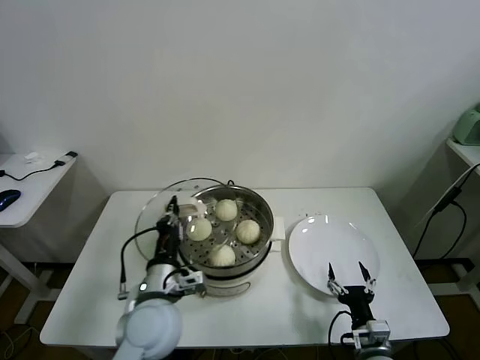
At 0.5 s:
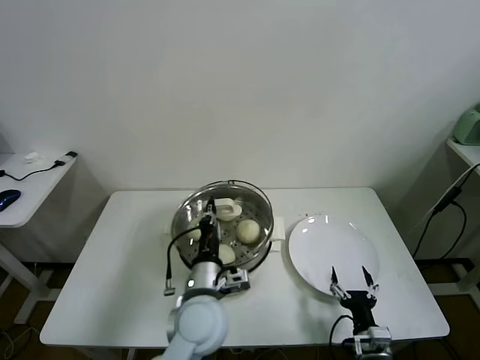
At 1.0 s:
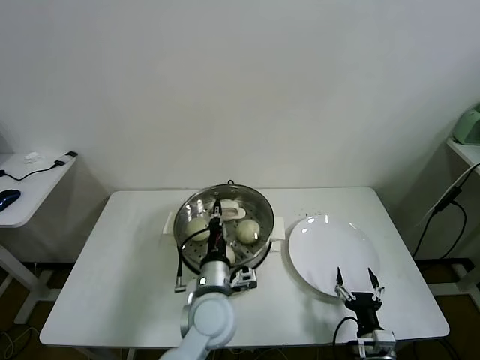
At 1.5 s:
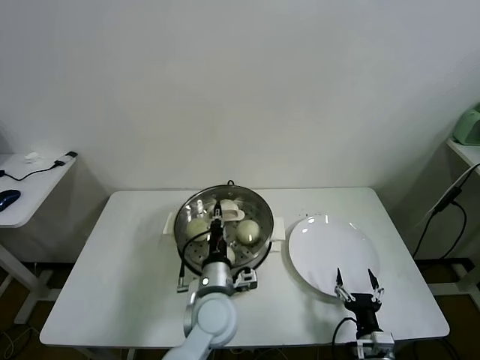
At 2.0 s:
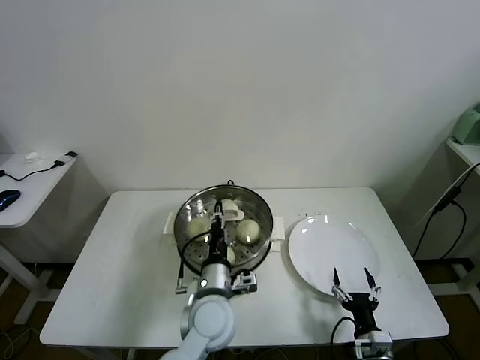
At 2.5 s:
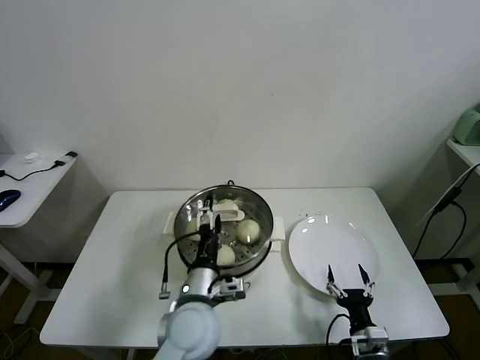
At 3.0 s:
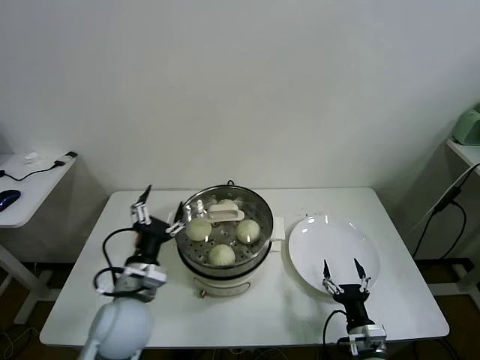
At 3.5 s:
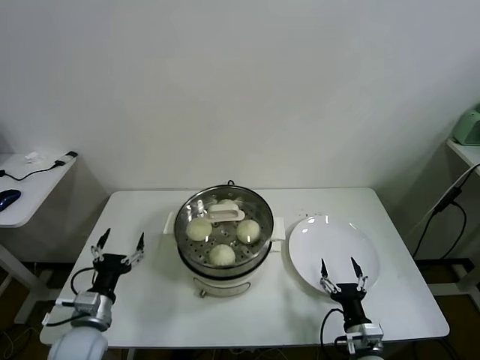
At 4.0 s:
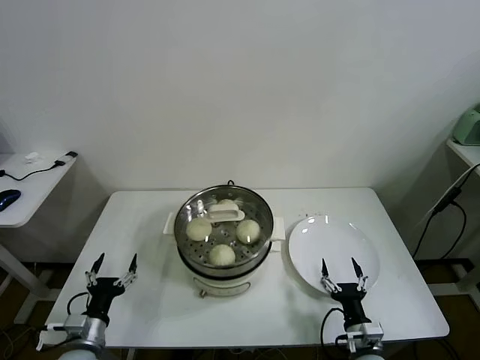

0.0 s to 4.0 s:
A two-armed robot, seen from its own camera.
Task of the whole recording: take steamed baozi put them in steamer.
0.0 to 2.0 s: The left gripper shifts roughly 10 cm to the right.
2.0 to 4.0 s: The left gripper moves to the left, about 30 cm, and opens.

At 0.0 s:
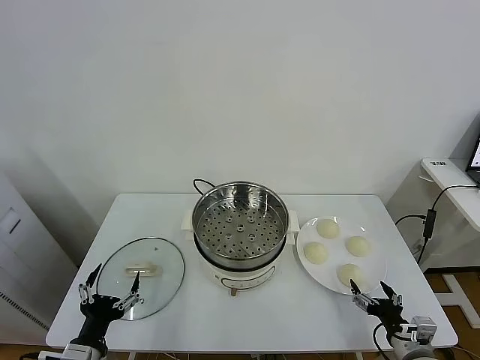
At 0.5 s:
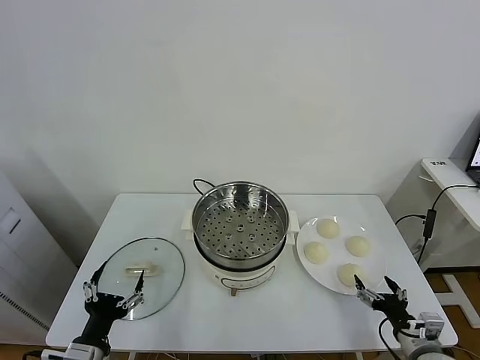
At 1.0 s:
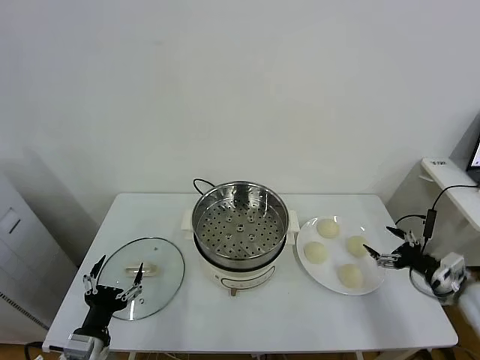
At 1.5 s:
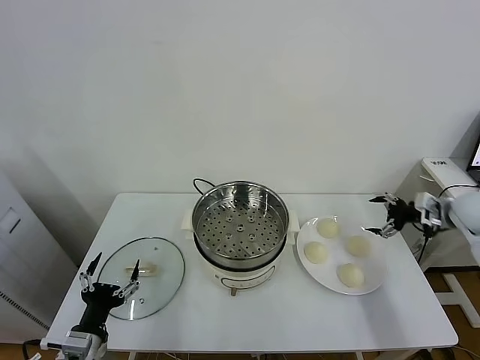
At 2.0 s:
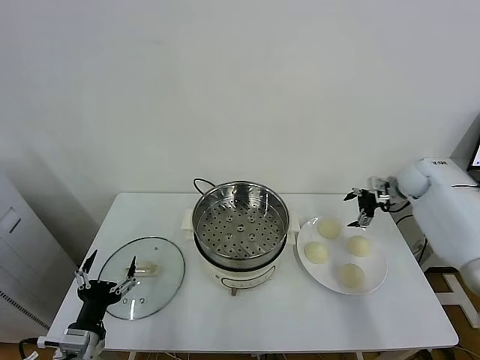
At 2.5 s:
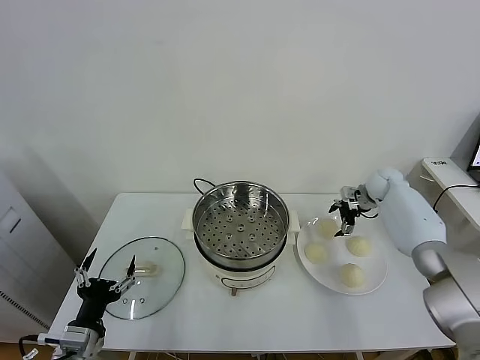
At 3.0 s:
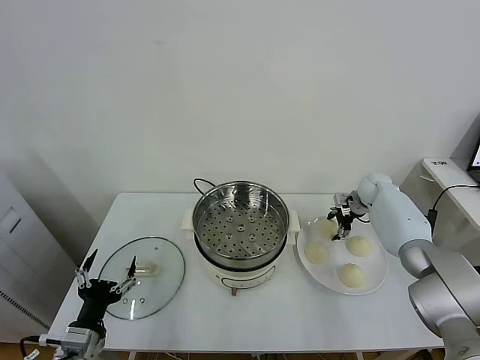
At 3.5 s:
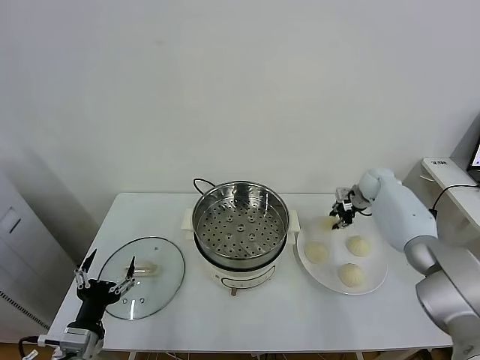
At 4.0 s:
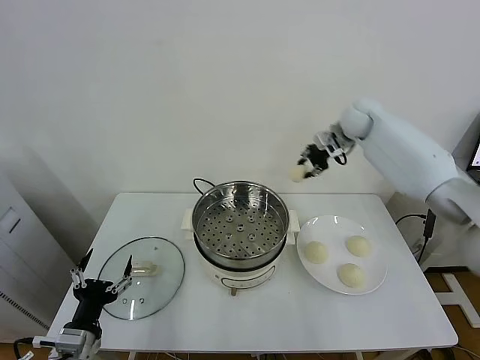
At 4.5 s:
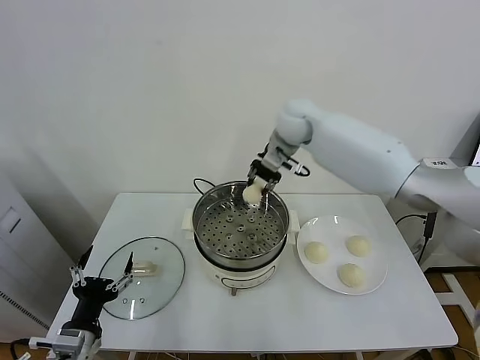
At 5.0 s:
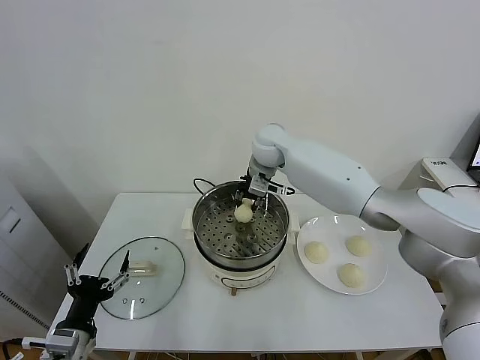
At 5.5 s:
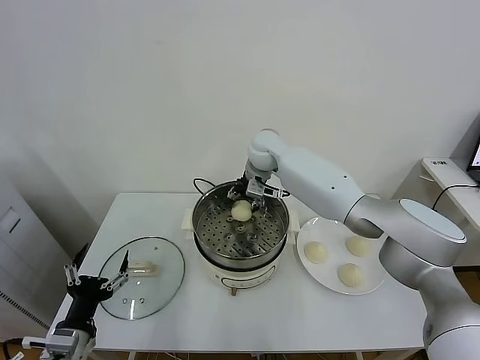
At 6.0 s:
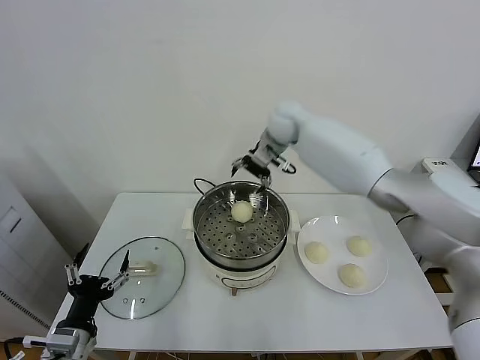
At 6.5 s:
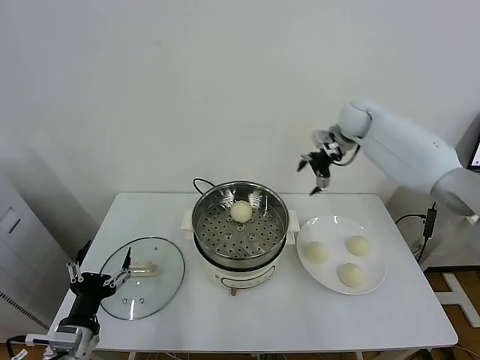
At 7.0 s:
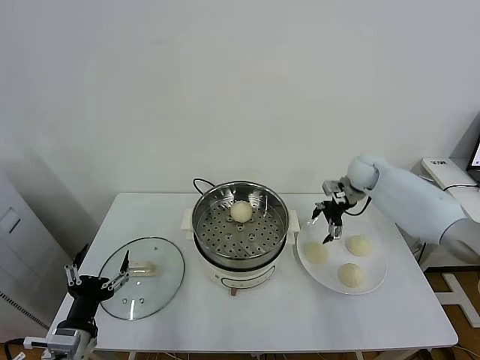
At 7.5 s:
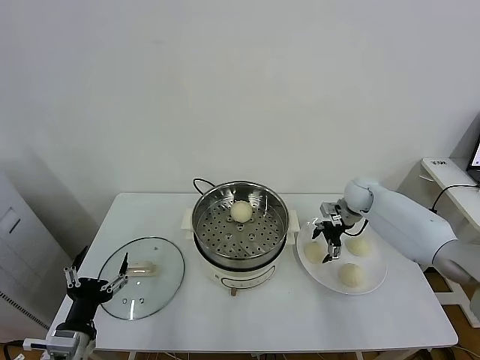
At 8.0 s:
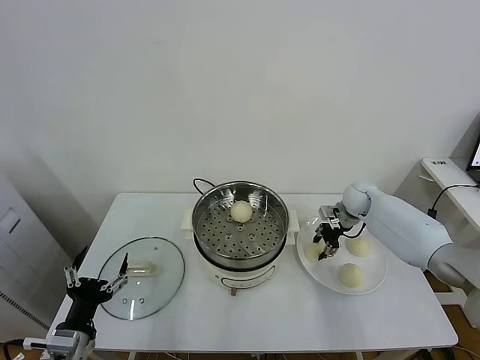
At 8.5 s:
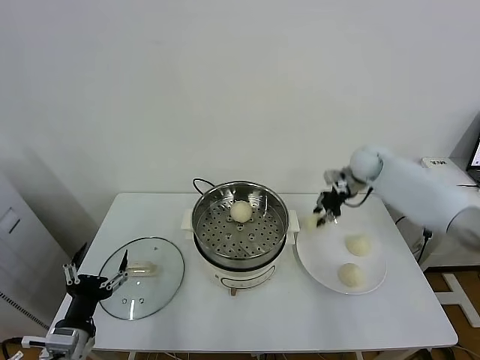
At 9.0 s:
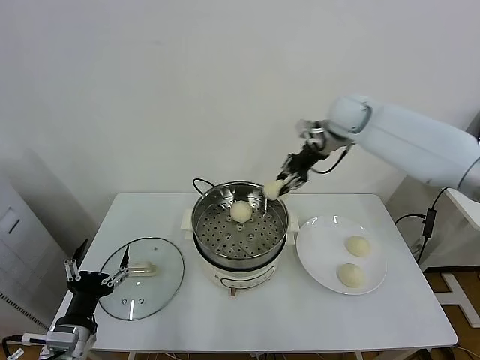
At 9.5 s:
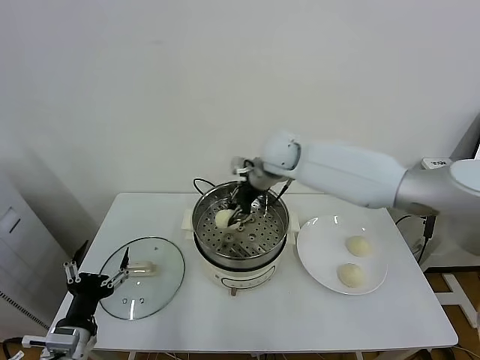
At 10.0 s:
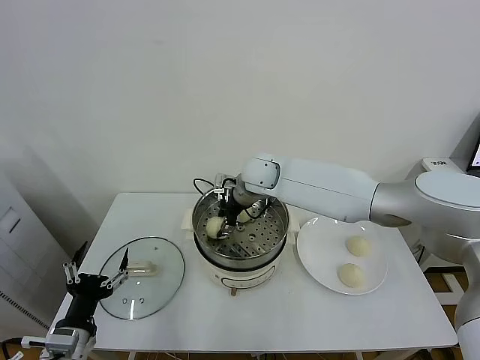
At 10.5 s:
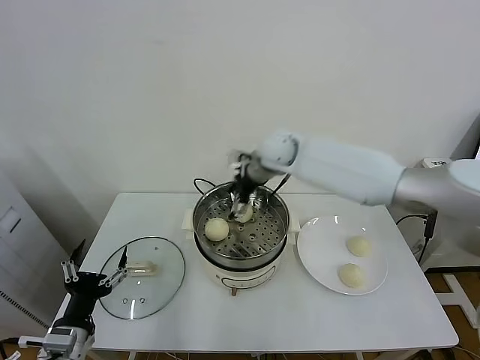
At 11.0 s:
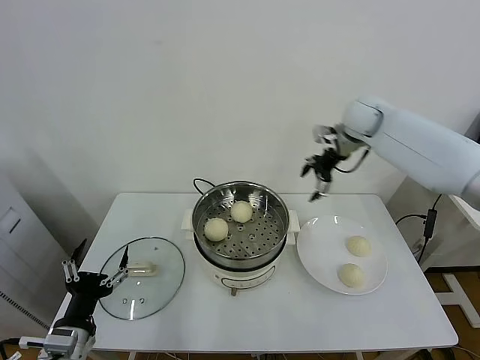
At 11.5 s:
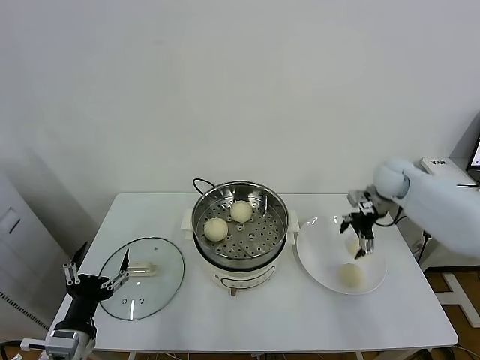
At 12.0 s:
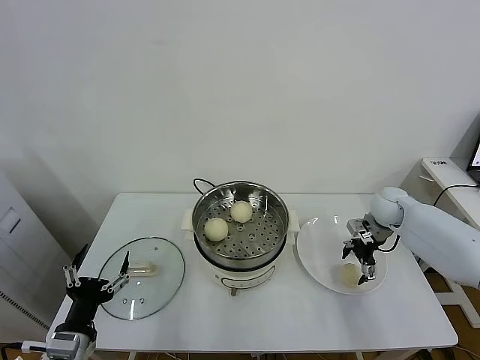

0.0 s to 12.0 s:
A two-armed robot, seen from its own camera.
Task of the whole recording: take steamed baozi put them in steamer.
Step, 0.0 to 3.0 s: Grasp the baozi in the plate with right gripper.
Step, 3.5 to 5.5 s: Place the baozi on the steamer with right gripper.
Step, 6.0 to 8.0 s: Grasp the baozi in the plate with right gripper.
Step, 8.5 to 10.0 s: Place the baozi on the steamer with right gripper.
2.0 to 4.0 s: The right gripper moves to the left and upward, approximately 25 cm, and closes up.
4.0 to 6.0 s: The right gripper shifts roughly 10 cm to the left, and opens.
6.0 to 8.0 s: The right gripper shifts about 30 cm downward and to the right, and closes.
8.0 to 10.0 s: The right gripper is displaced to the left and upward by approximately 30 cm.
10.0 to 12.0 s: The right gripper goes approximately 35 cm to the right, and opens its fingers.

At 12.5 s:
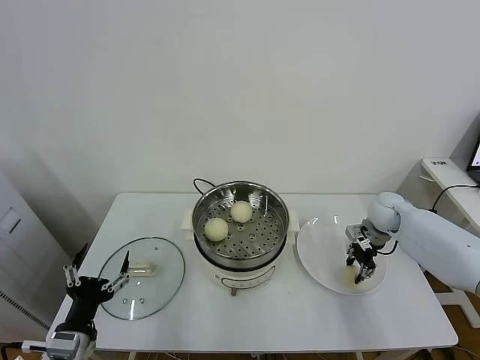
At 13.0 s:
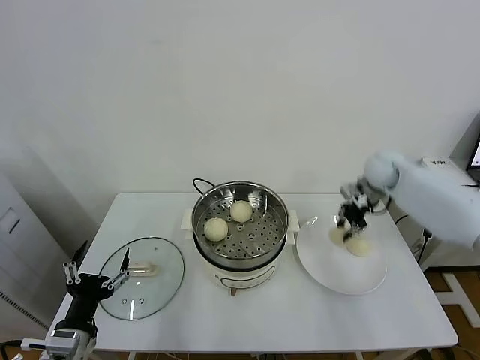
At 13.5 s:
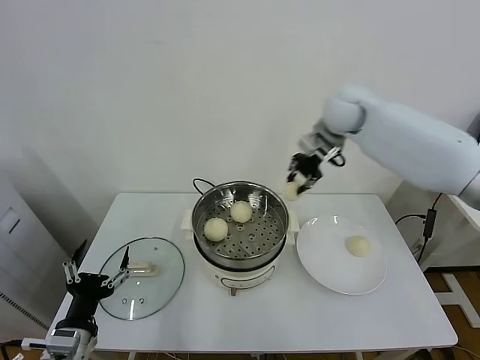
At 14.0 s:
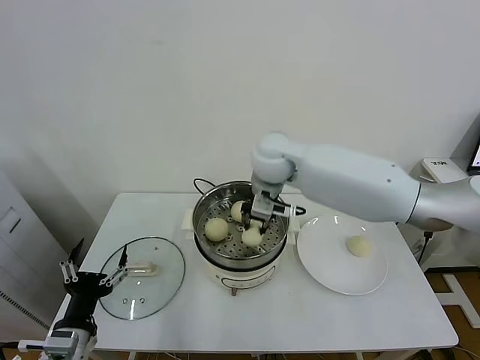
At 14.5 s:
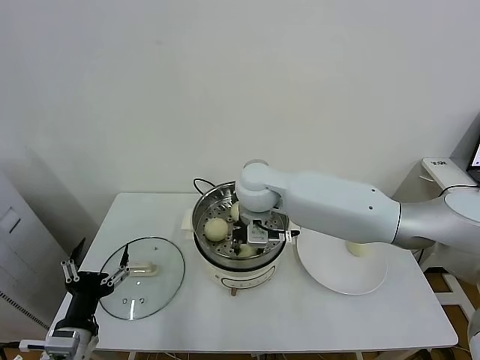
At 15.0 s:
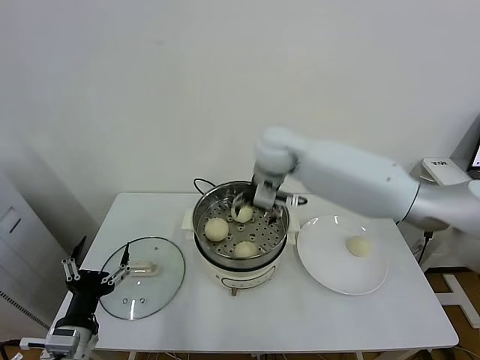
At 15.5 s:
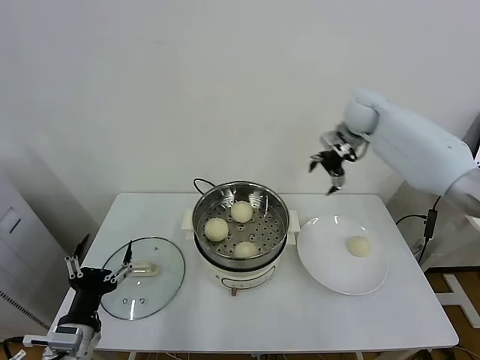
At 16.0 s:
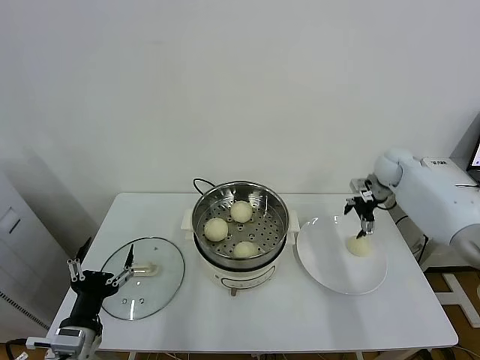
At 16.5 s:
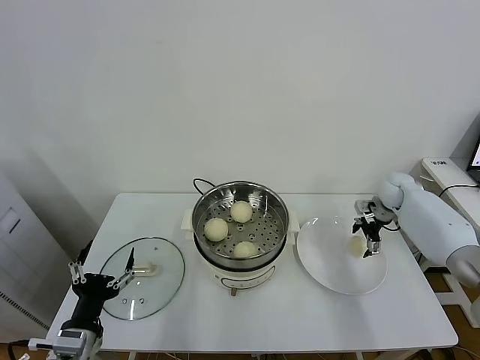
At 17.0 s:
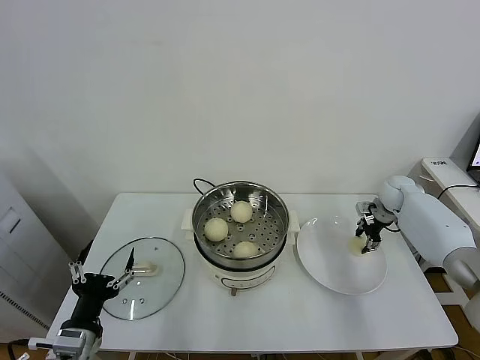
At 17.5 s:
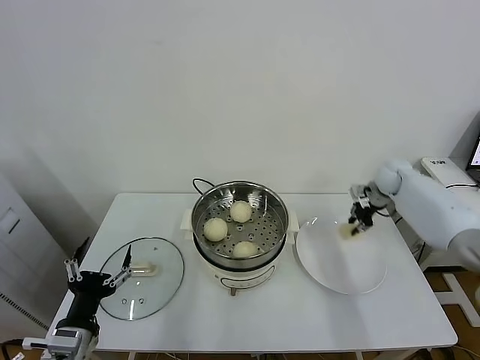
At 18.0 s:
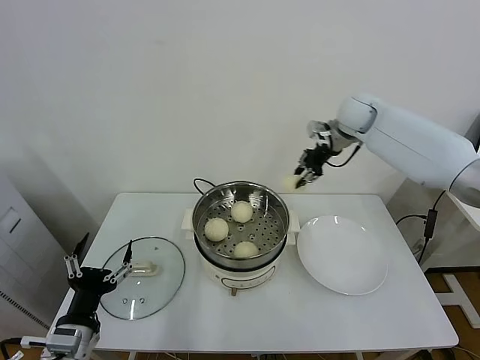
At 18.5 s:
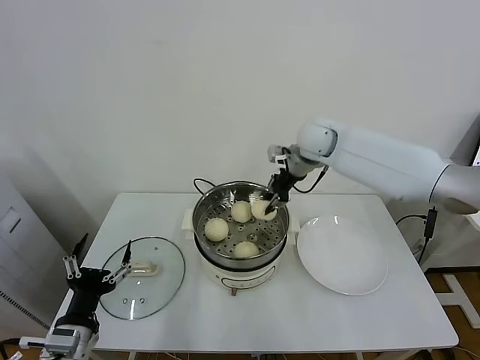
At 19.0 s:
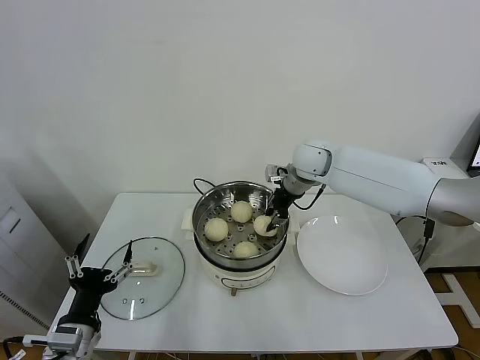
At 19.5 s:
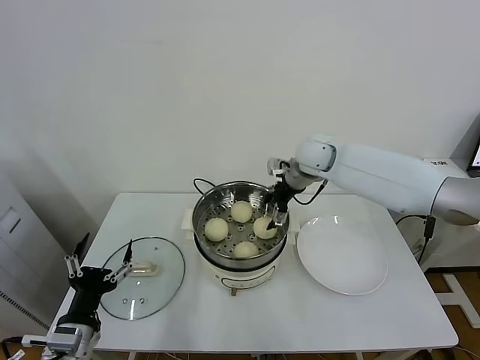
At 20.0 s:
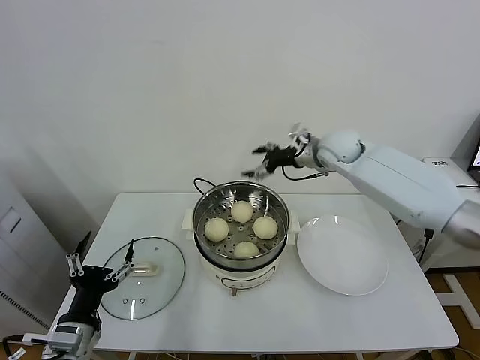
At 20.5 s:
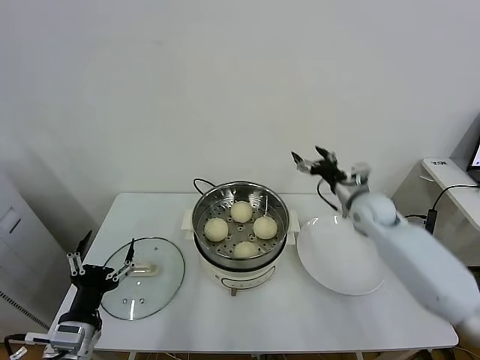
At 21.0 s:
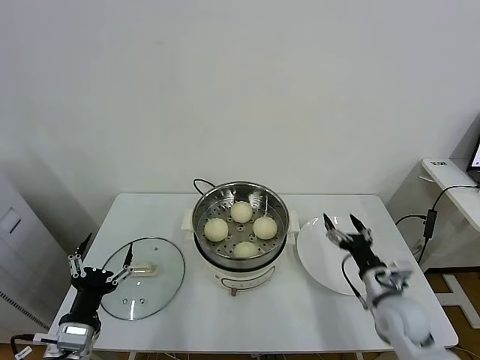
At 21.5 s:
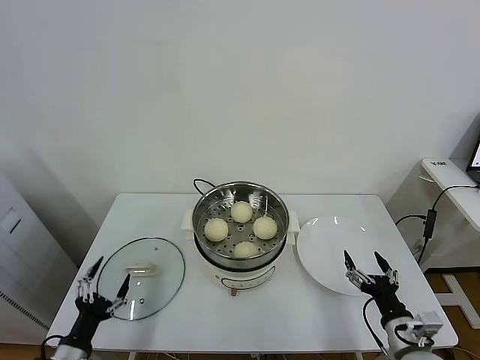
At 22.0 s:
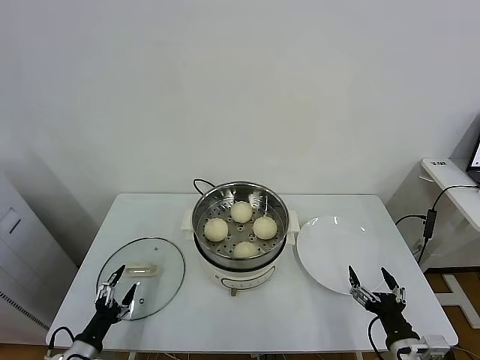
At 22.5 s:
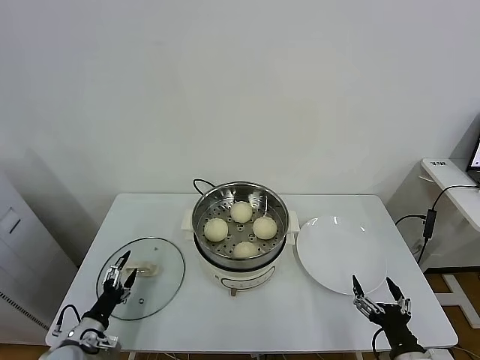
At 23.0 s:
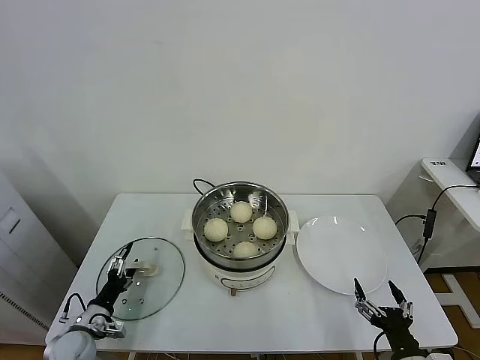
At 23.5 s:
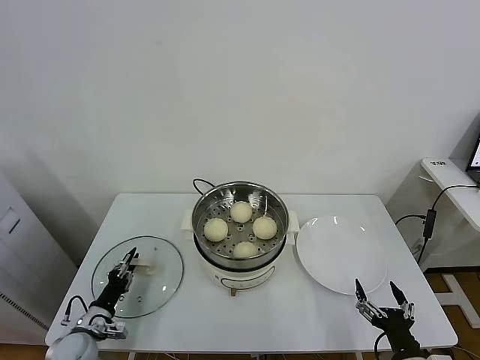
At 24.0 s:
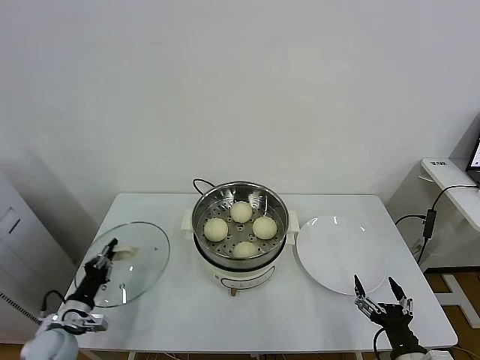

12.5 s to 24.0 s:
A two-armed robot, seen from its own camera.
Task of the whole recording: take steamed baozi put them in steamer.
Step, 13.0 to 14.5 s: Place the baozi on the steamer with right gripper.
Step, 15.0 to 17.0 s: Grasp the baozi in the plate with right gripper.
Step, 17.5 to 19.0 s: Place the baozi on the steamer with right gripper.
Step, 19.5 to 23.5 s: Grasp the pot lid with left gripper.
12.5 to 14.5 s: The right gripper is displaced to the left and upward by some 40 cm.
14.5 to 16.5 s: The right gripper travels to the right by some 40 cm, and opens its fingers.
16.5 to 18.5 s: The right gripper heads to the left and upward, covering some 30 cm, and closes.
18.5 to 20.0 s: The right gripper moves to the right, approximately 5 cm, and opens up.
20.0 to 22.0 s: The right gripper is displaced backward and downward by roughly 50 cm. Meanwhile the left gripper travels downward and to the left by approximately 20 cm.
22.0 to 24.0 s: The left gripper travels forward by about 10 cm, and closes its fingers.
